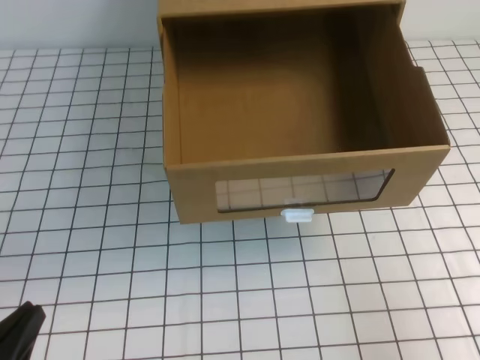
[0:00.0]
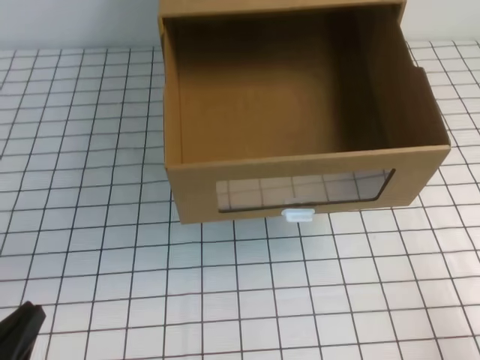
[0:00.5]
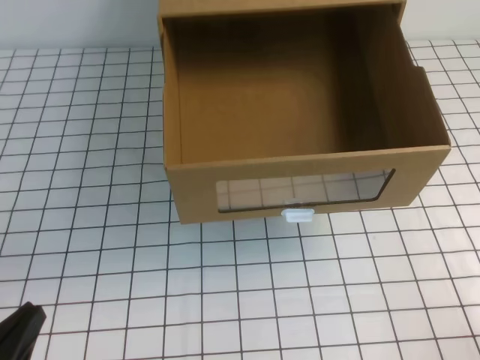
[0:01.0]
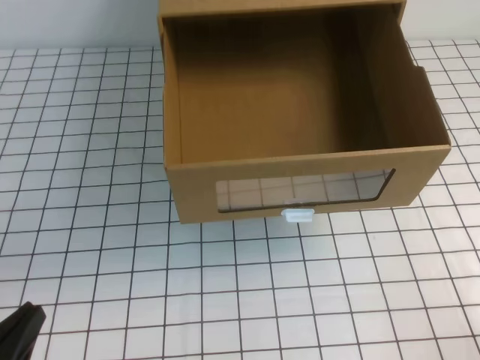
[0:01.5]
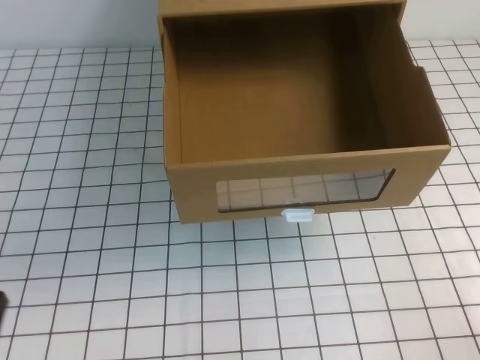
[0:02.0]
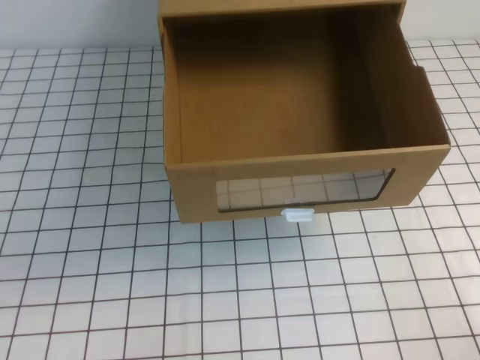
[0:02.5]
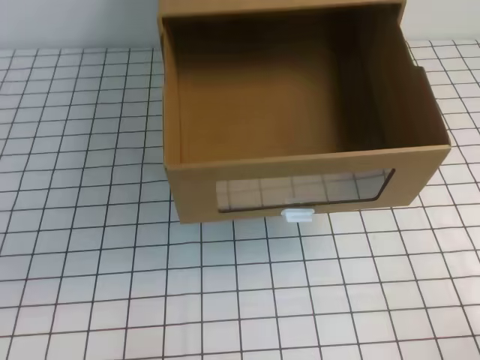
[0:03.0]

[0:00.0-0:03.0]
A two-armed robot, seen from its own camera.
Task of the whole recording: open the shoebox on the white tablecloth.
Step, 0:00.0 to 0:03.0: Open the shoe box.
0:00.0 to 0:01.5: The right gripper goes approximately 10 cm downward.

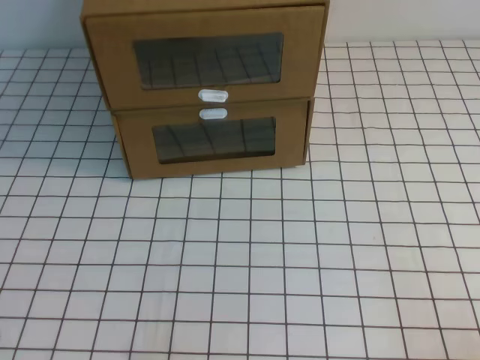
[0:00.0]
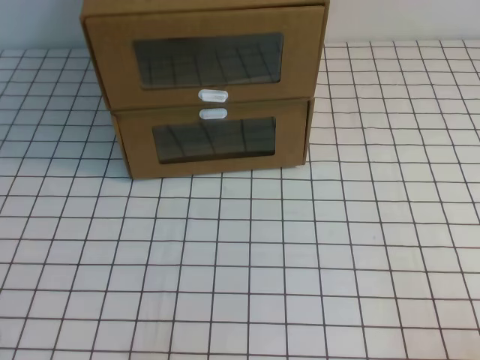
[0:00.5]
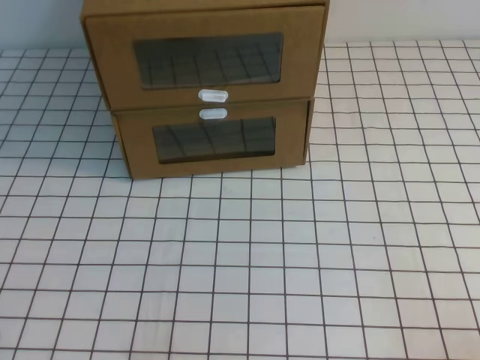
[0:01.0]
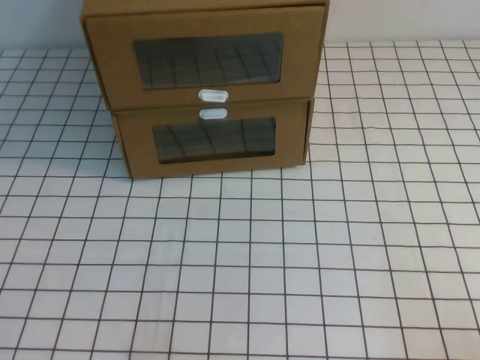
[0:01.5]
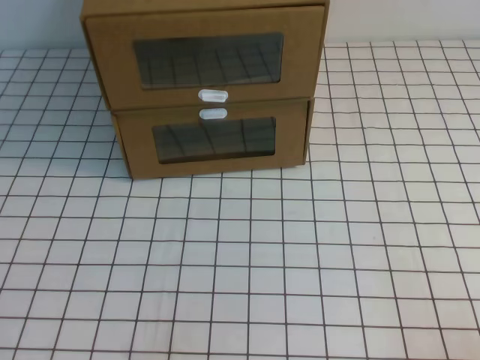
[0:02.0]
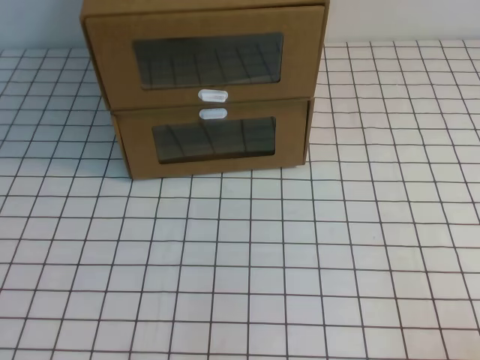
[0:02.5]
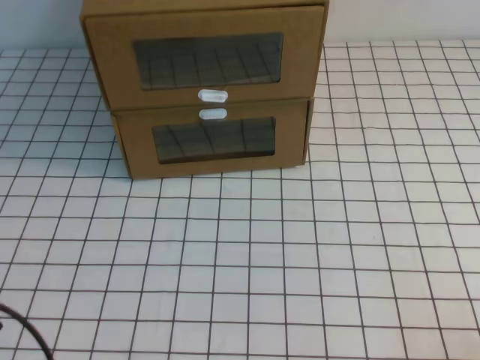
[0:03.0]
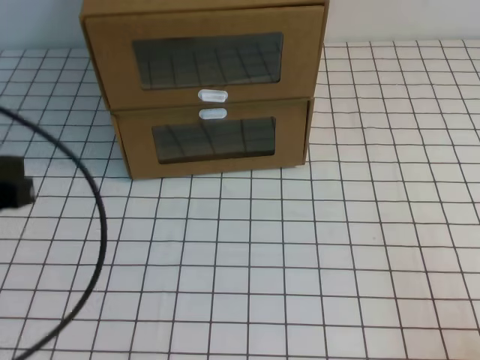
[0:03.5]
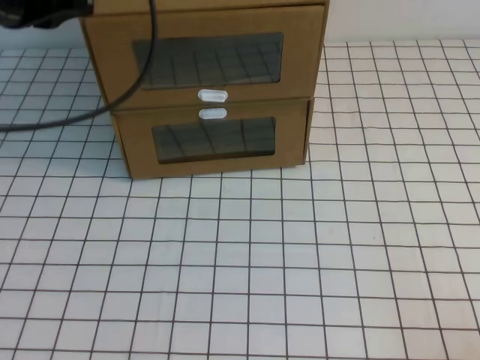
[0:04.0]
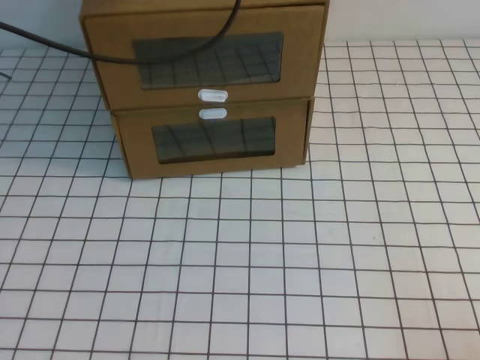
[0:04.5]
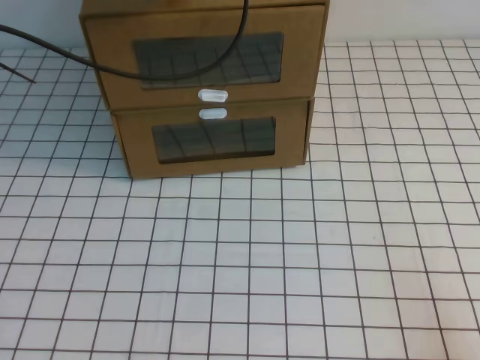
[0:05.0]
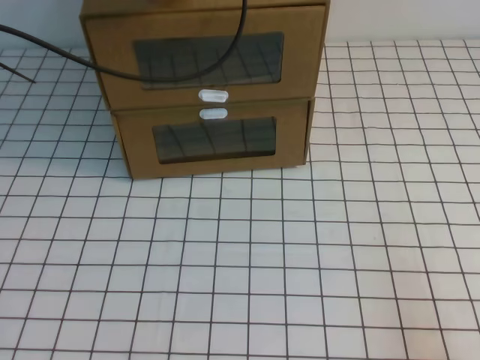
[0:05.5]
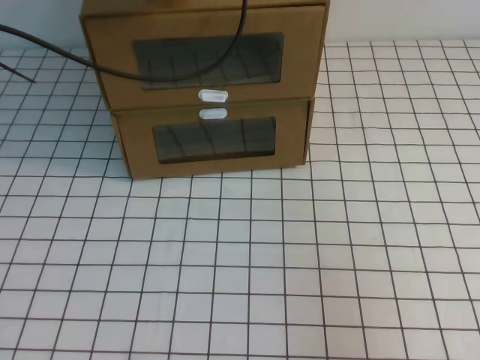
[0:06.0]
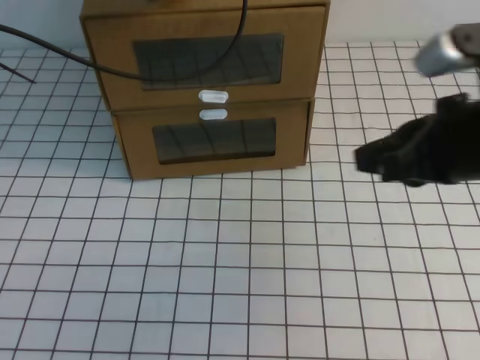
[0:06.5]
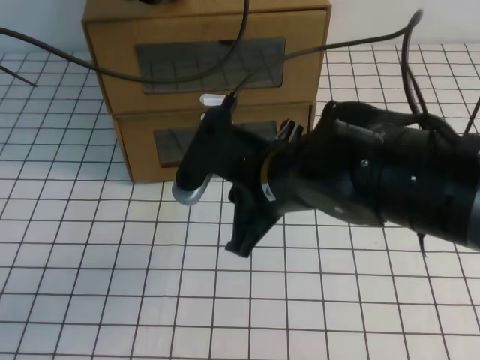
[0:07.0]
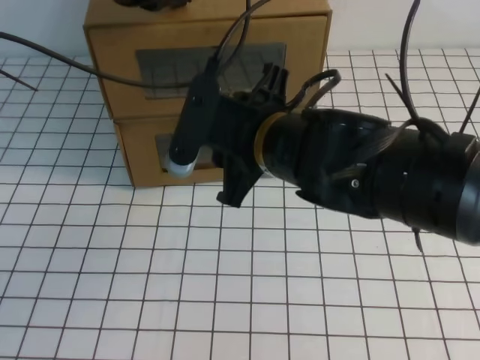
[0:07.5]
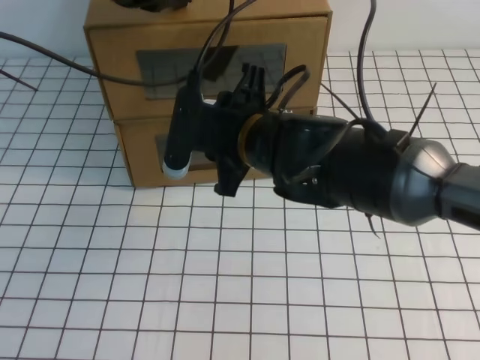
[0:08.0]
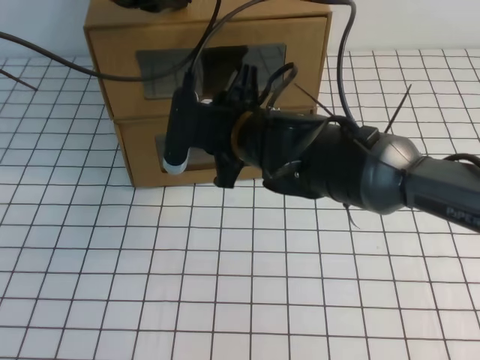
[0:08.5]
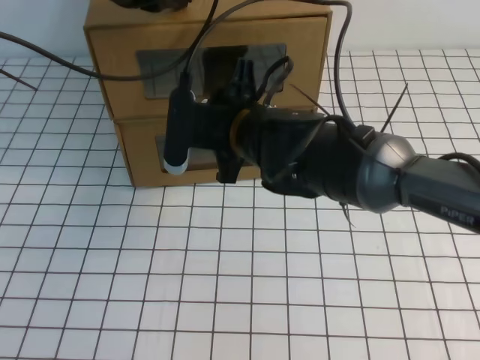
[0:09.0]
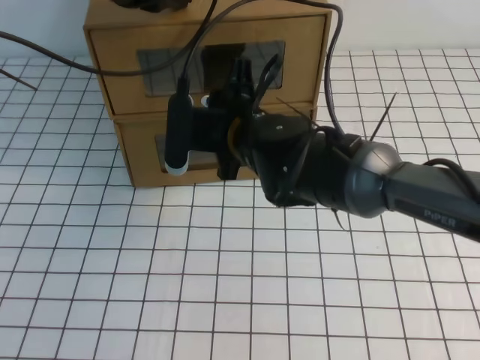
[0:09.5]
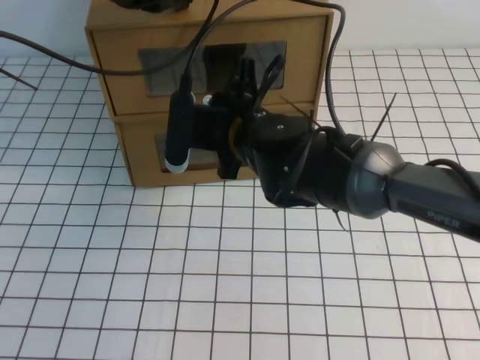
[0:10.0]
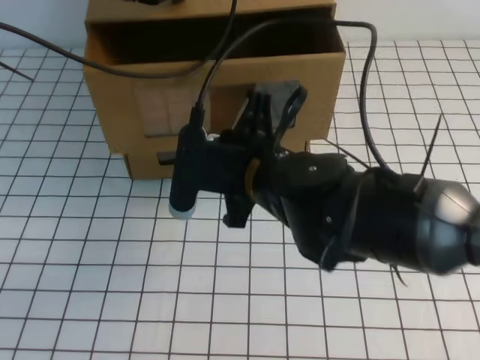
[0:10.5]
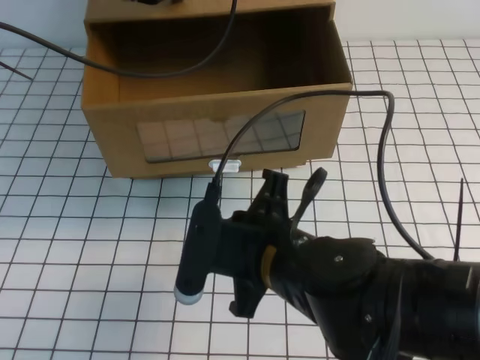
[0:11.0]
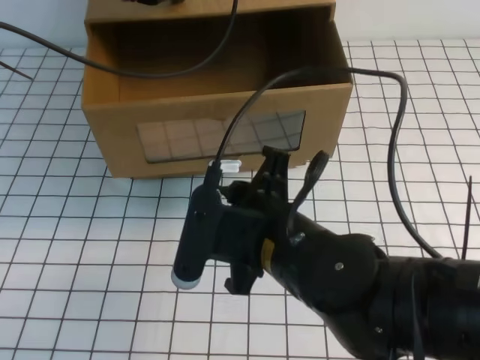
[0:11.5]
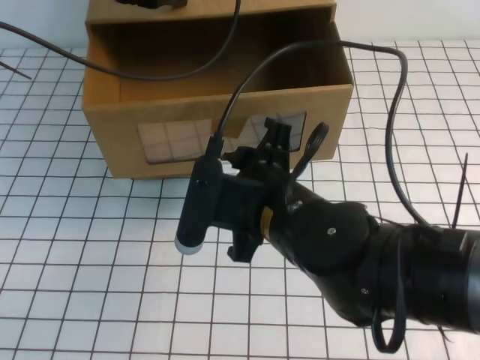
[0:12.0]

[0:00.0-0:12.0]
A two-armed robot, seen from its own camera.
Task of the whole recording: open the shoebox on the white tablecloth.
0:02.0 to 0:04.0: The left gripper is displaced forward and upward by some 35 cm.
0:04.0 to 0:06.0: The right gripper travels upward by about 15 cm, while the left gripper heads forward and to the right, covering about 15 cm.
0:06.0 to 0:08.0: The right gripper heads to the left and forward, covering some 35 cm, and opens its fingers.
0:08.0 to 0:10.0: The right gripper closes.
0:10.0 to 0:12.0: The right gripper heads backward, covering approximately 15 cm, and opens.

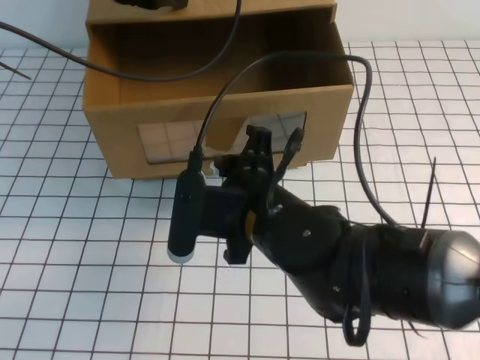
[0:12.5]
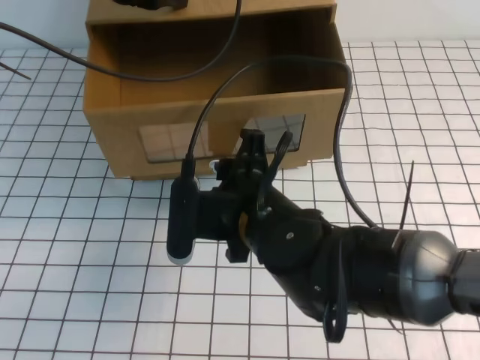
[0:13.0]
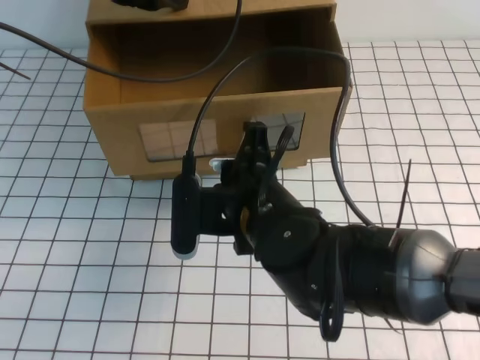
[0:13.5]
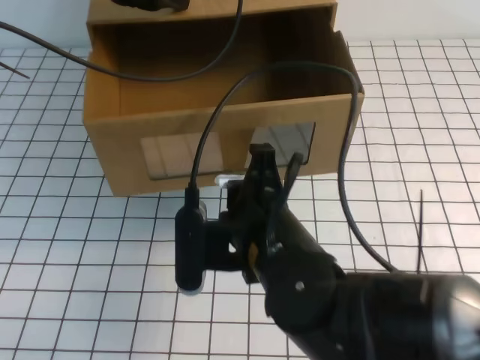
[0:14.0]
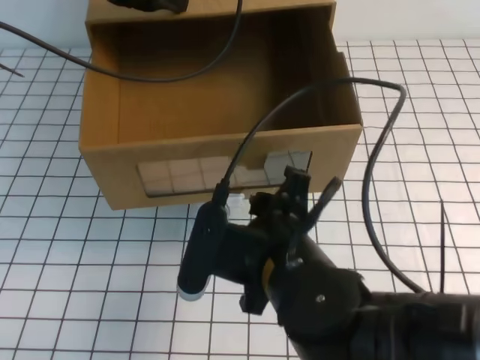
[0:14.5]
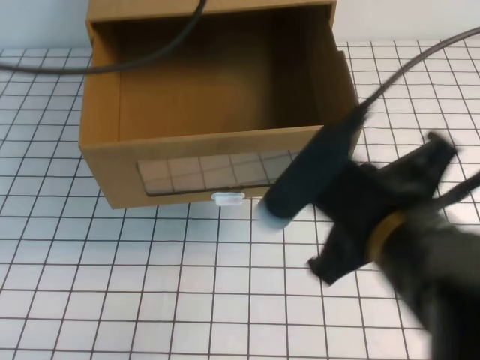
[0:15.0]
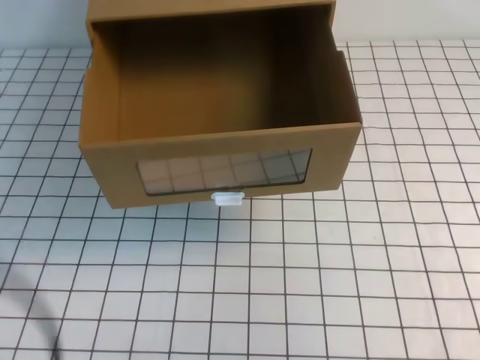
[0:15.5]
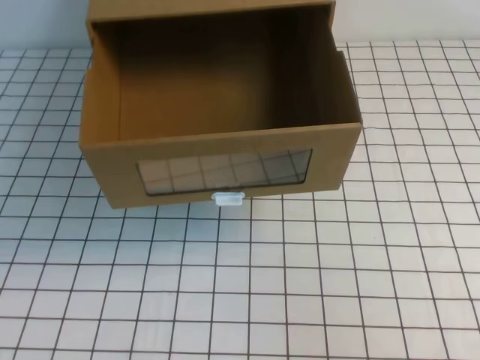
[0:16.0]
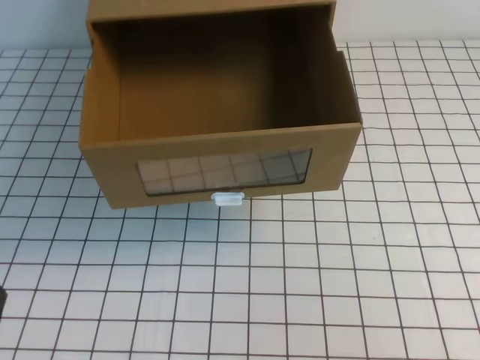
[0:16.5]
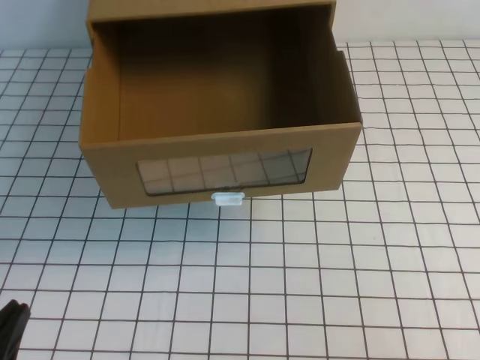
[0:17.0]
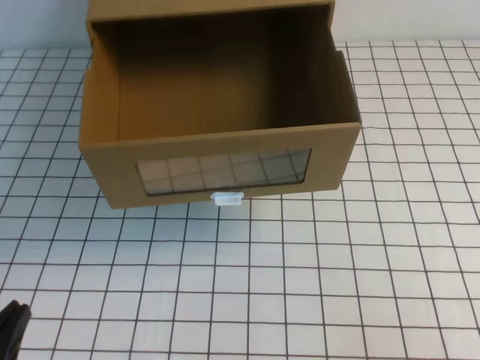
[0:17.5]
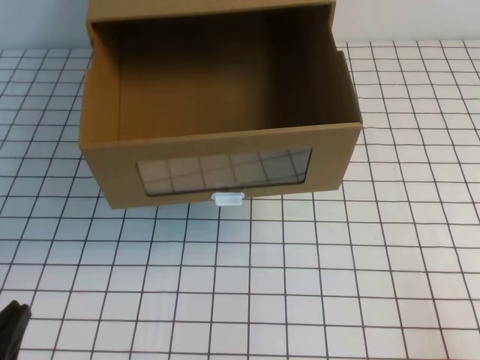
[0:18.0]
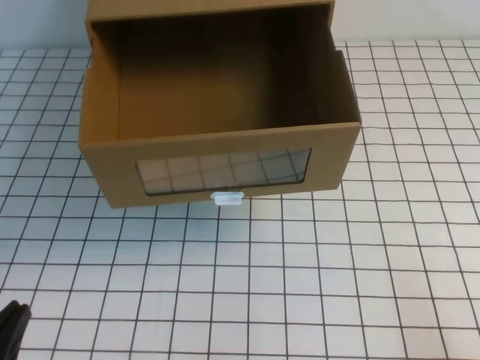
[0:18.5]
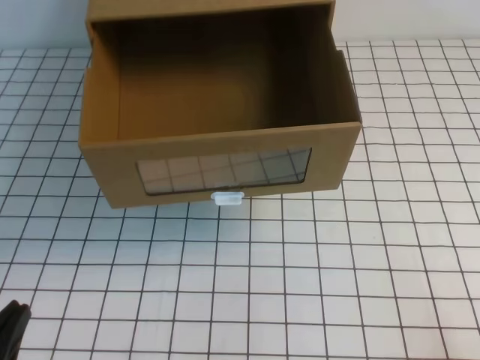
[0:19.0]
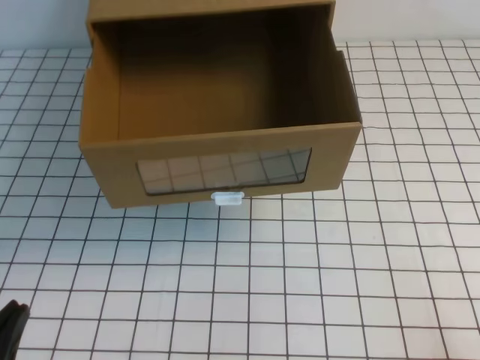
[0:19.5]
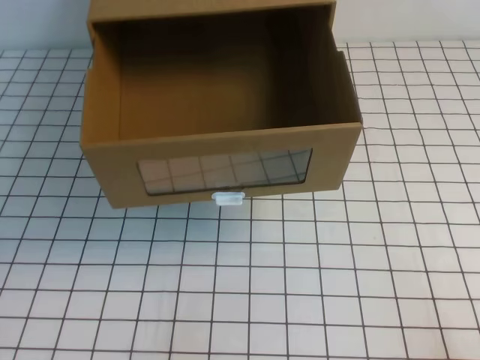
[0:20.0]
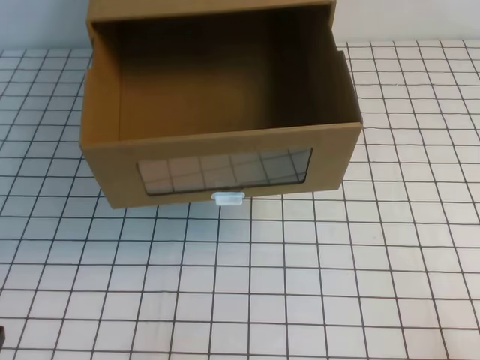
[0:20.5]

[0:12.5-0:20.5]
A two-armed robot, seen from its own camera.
Task of the whole recording: open the shoebox on the white tablecloth.
Step, 0:12.5 to 0:20.5: Open the shoe box.
0:12.5 to 0:14.5: The right gripper moves backward, some 5 cm, and closes and opens again.
0:14.5 to 0:16.5: The left gripper shifts approximately 40 cm backward and downward, while the right gripper moves to the right and backward, approximately 30 cm, and closes its fingers.
0:16.5 to 0:18.5: The right gripper heads downward, covering roughly 10 cm.
0:18.5 to 0:20.5: There are only small adjustments of the grippers.

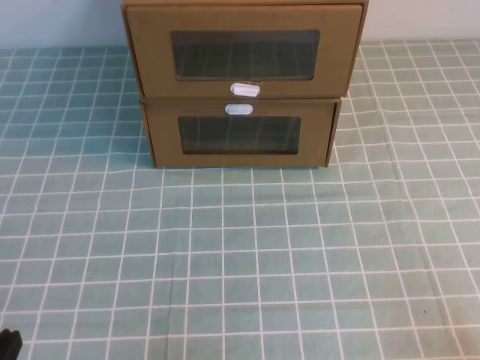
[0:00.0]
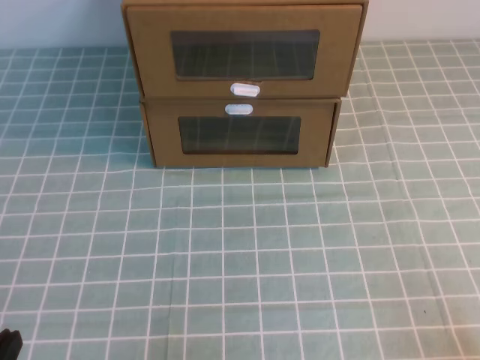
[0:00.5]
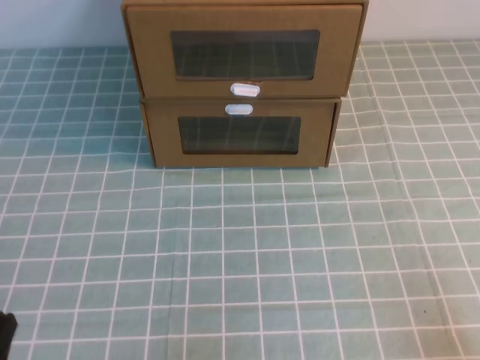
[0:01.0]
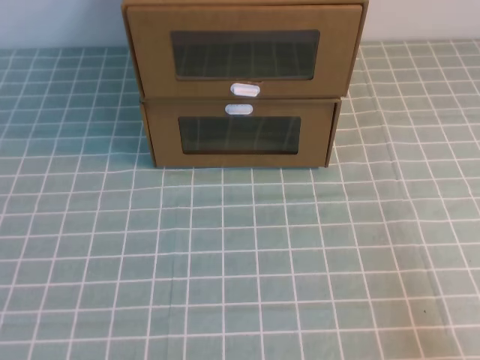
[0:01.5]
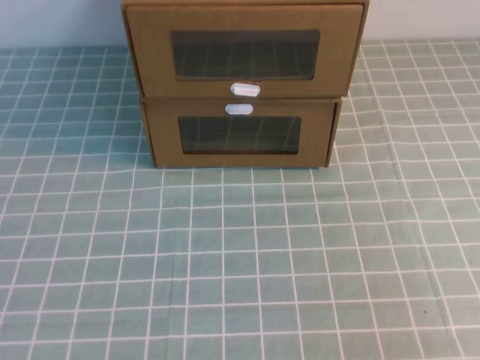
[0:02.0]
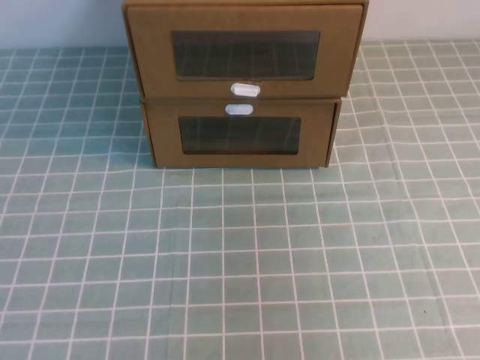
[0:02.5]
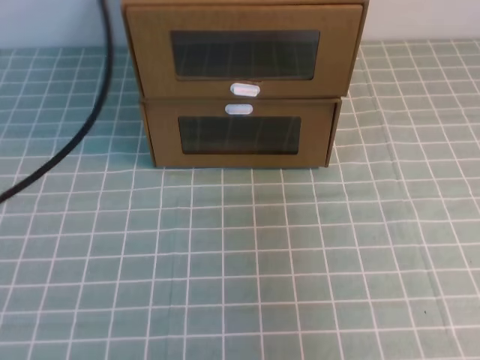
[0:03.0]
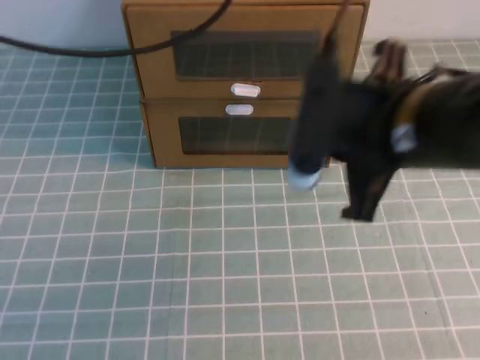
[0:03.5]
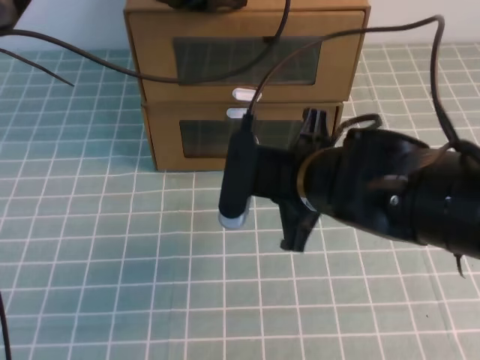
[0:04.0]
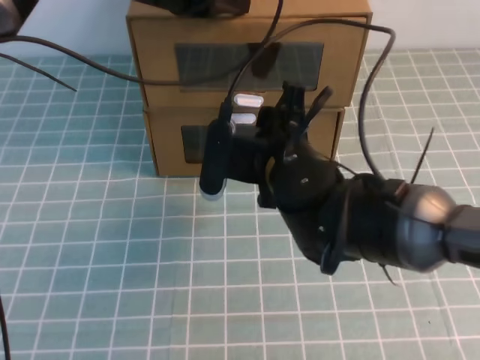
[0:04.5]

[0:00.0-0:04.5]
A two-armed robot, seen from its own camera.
Task of the whole recording: open the shoebox on the cyan tablecloth.
0:02.0 to 0:04.5: The right gripper shifts about 40 cm forward and to the left, and opens up; the left gripper shifts approximately 50 cm forward and to the right.
